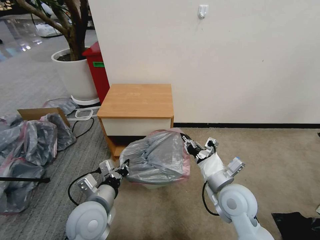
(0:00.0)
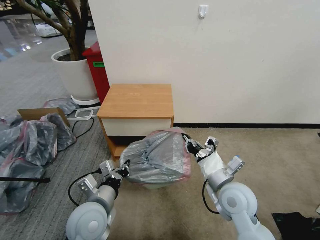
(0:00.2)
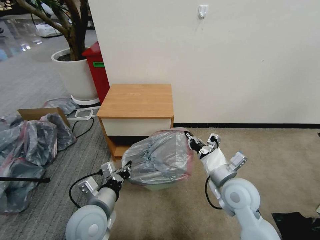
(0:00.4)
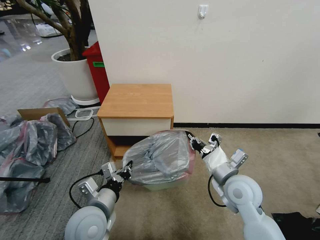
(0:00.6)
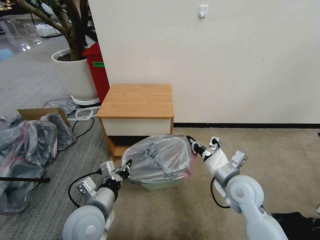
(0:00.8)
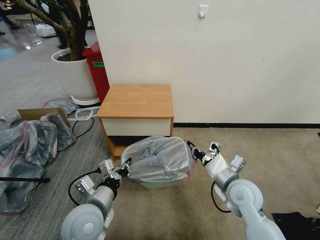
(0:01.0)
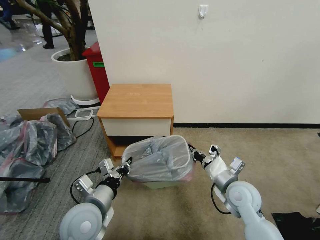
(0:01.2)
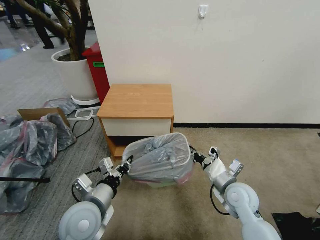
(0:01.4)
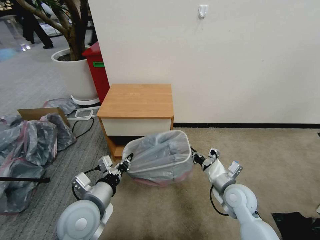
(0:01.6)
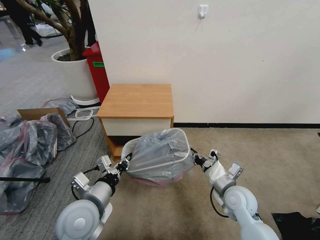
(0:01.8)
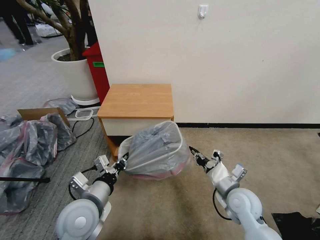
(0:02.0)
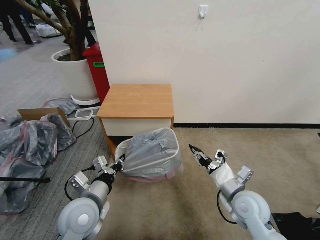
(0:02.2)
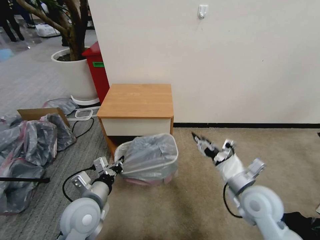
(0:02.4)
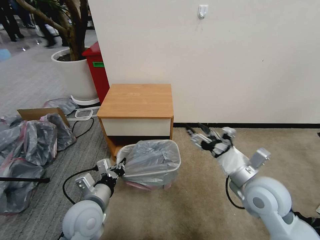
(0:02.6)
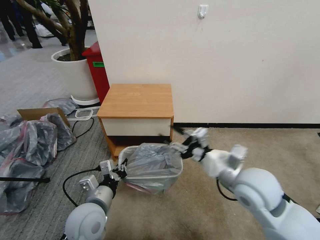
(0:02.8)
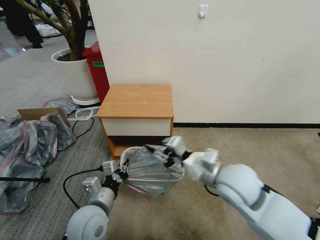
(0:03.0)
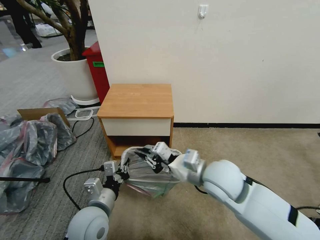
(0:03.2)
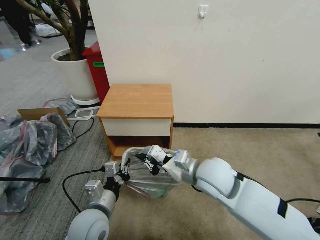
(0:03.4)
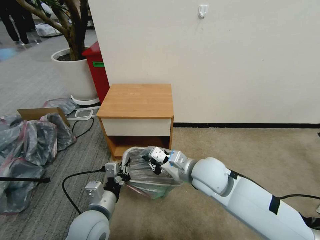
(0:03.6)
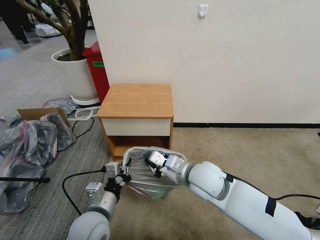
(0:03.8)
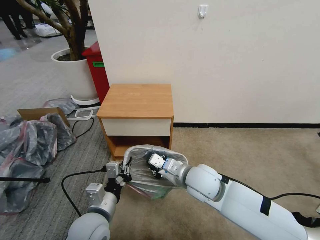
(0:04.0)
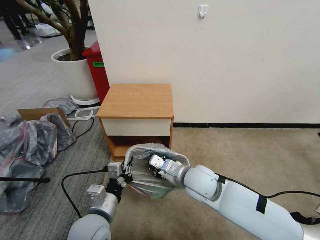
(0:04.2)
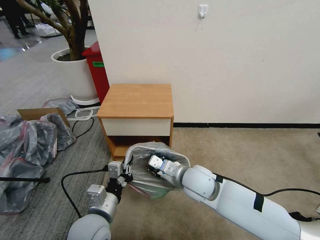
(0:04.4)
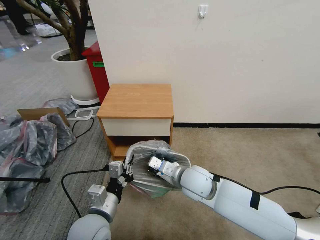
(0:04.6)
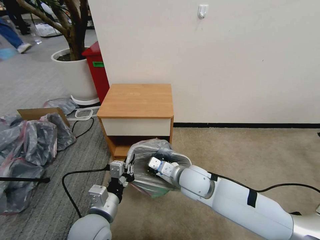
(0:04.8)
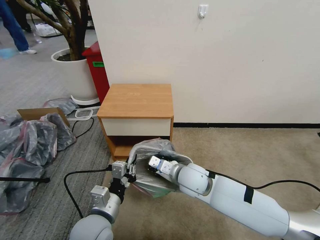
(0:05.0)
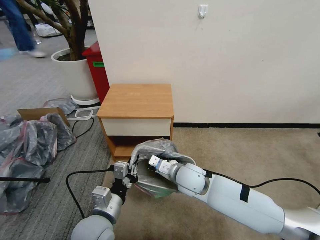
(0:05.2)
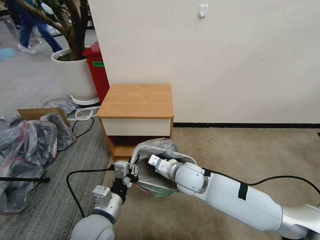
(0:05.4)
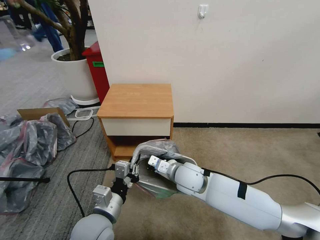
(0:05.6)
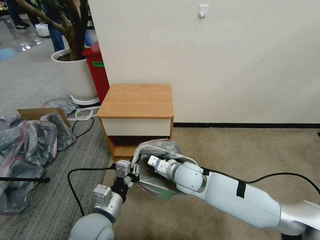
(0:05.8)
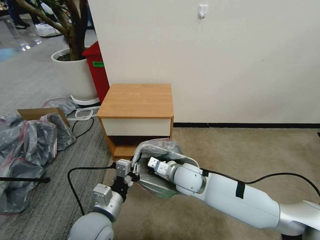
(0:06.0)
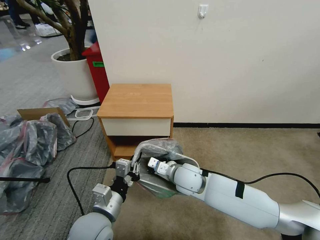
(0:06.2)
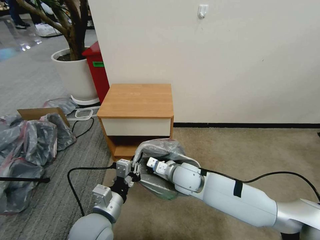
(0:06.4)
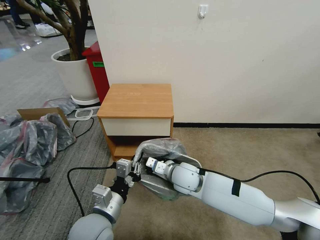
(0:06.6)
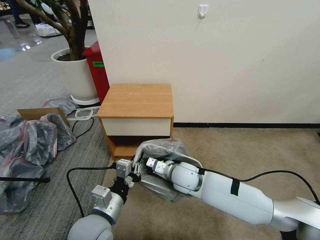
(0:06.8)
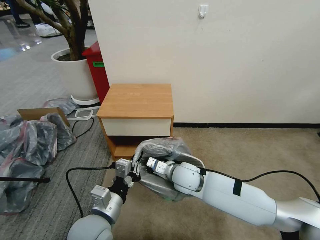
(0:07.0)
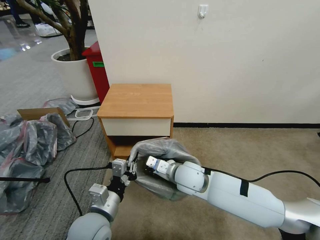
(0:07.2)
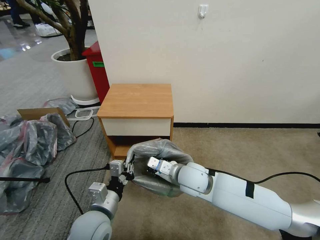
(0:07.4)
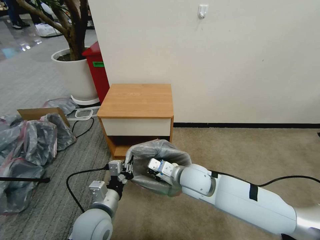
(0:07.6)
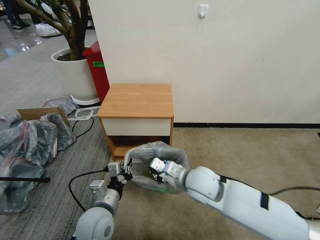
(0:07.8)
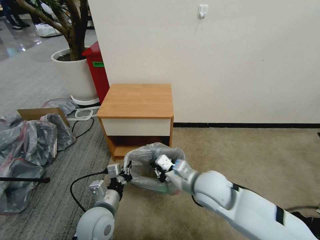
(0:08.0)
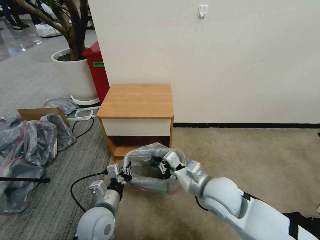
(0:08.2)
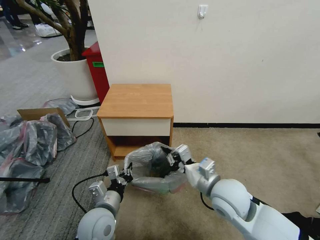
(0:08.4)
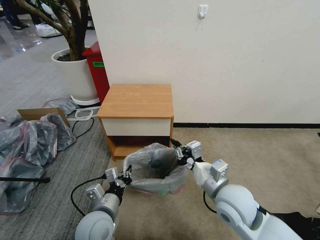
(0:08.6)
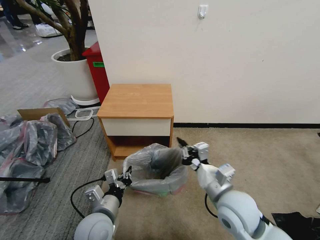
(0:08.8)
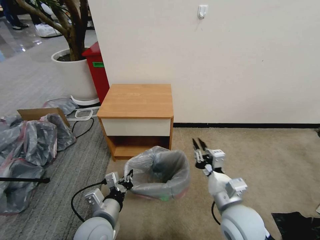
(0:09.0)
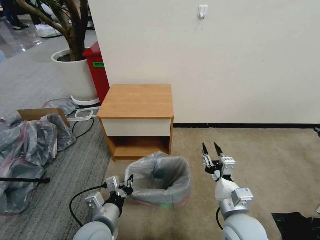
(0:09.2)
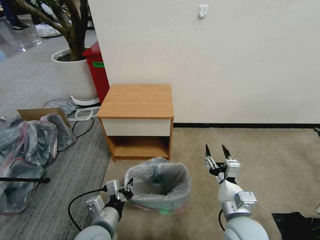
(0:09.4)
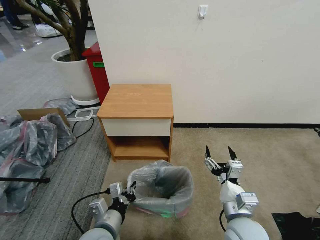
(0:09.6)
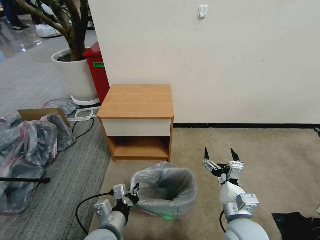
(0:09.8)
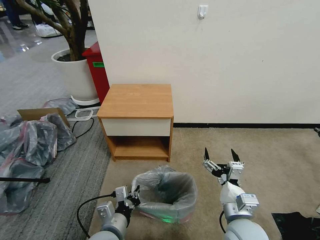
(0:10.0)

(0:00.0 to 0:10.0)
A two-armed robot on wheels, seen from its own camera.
Task of the whole recording: Pick up the garbage bag from the table and place it over the trash can.
0:00.0 - 0:01.4: The right gripper heads downward, covering approximately 5 cm.
0:01.4 - 0:02.8: The right gripper travels upward by some 15 cm, and opens.
0:02.8 - 0:04.2: The right gripper moves to the left and downward, some 15 cm, and closes.
0:04.2 - 0:05.8: The right gripper shifts by approximately 5 cm.
0:05.8 - 0:07.2: The grippers move only a little.
0:07.2 - 0:08.6: The right gripper goes roughly 15 cm to the right and backward.
0:08.6 - 0:10.0: The left gripper shifts by approximately 5 cm; the right gripper shifts approximately 10 cm backward and downward, and opens its fingers.

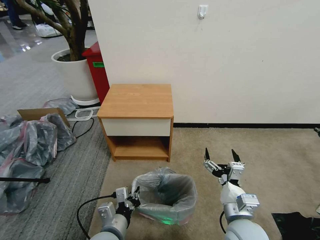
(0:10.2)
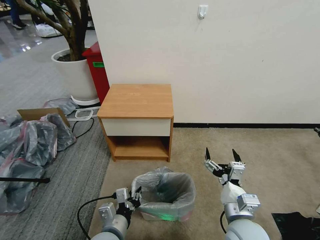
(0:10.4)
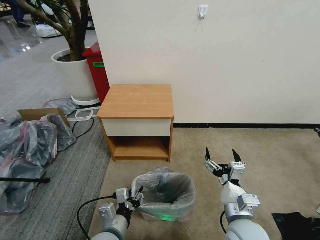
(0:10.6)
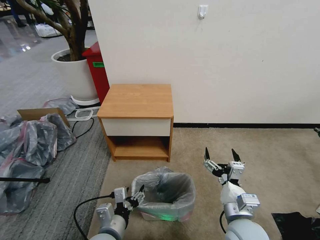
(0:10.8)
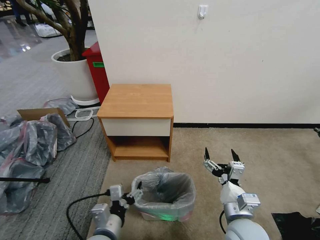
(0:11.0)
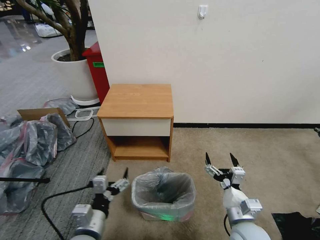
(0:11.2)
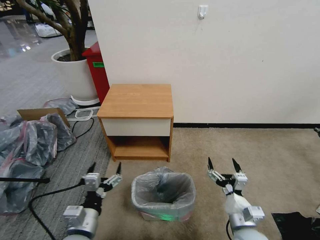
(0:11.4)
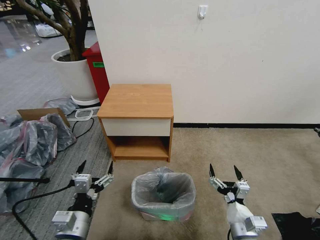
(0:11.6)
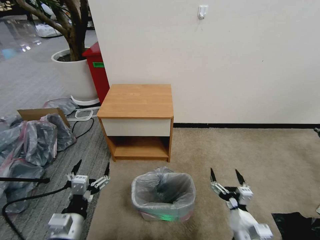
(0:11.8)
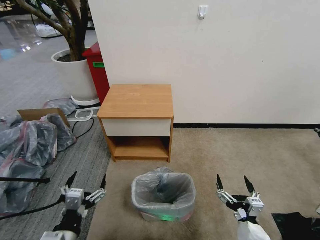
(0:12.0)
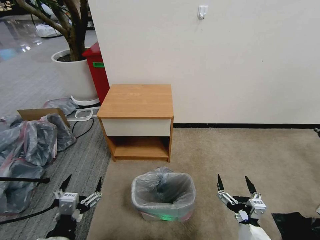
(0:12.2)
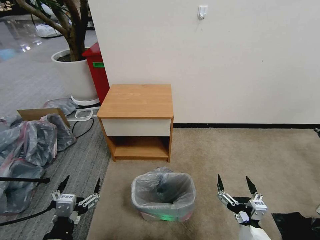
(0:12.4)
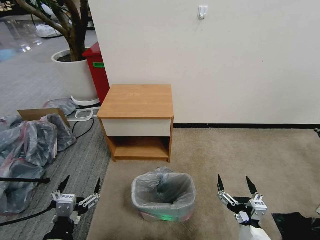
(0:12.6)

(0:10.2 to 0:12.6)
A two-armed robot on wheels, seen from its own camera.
Task of the whole recording: Pick up the garbage bag from the table and place it over the trash can.
0:10.2 - 0:11.4: The left gripper is displaced to the left by some 5 cm, and opens up, while the right gripper goes approximately 5 cm downward.
0:11.4 - 0:12.6: The two grippers go about 10 cm backward.

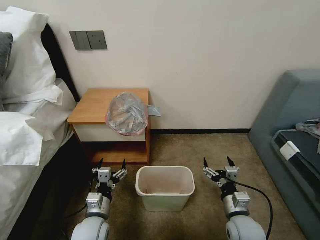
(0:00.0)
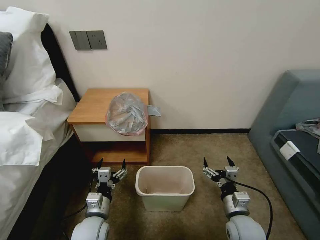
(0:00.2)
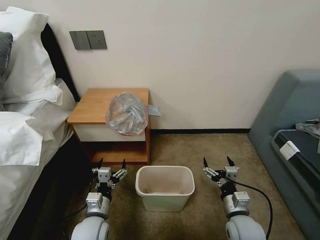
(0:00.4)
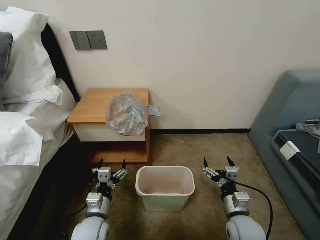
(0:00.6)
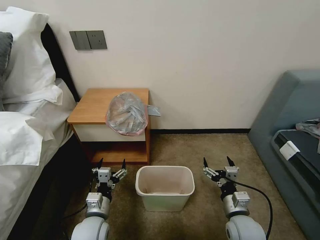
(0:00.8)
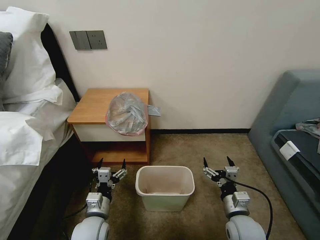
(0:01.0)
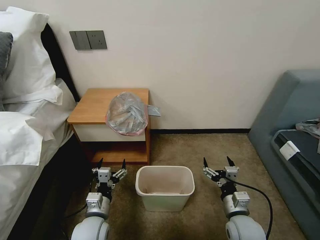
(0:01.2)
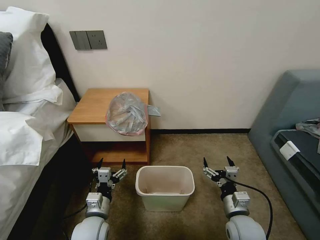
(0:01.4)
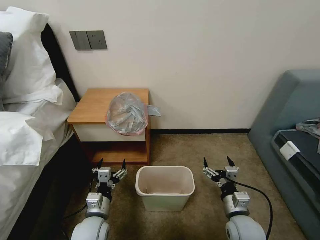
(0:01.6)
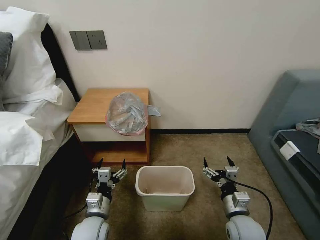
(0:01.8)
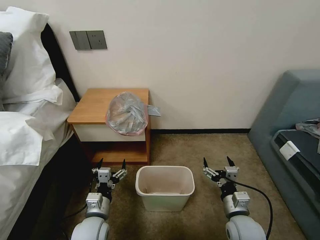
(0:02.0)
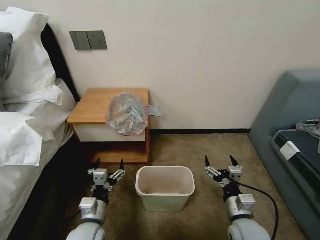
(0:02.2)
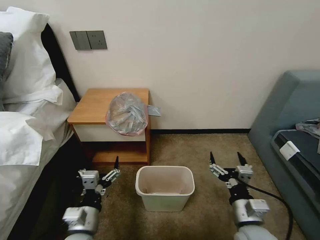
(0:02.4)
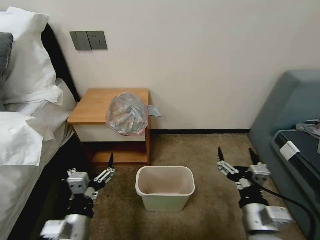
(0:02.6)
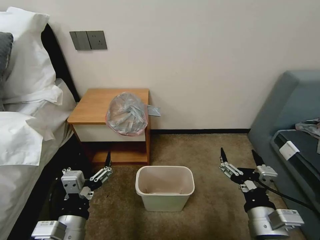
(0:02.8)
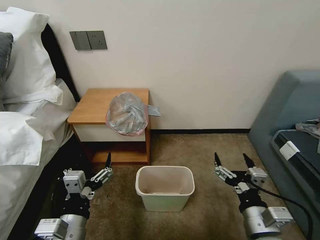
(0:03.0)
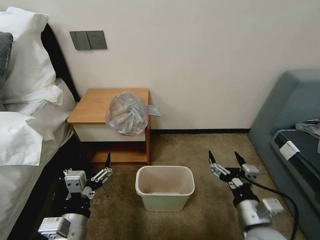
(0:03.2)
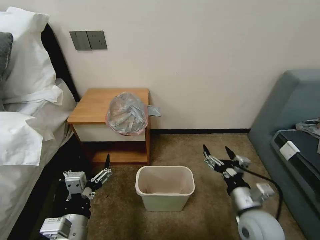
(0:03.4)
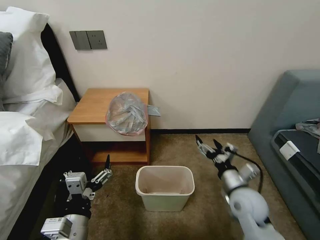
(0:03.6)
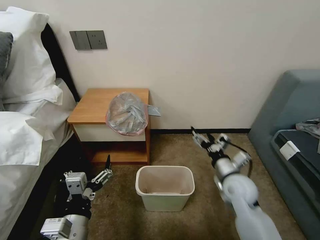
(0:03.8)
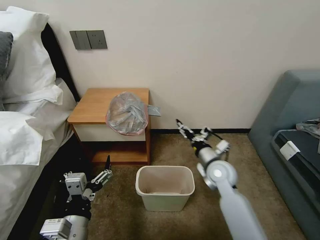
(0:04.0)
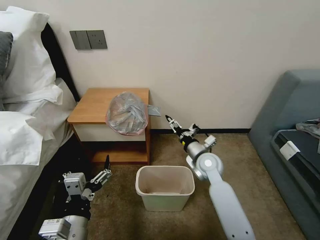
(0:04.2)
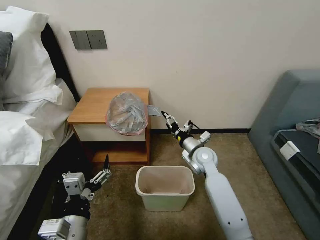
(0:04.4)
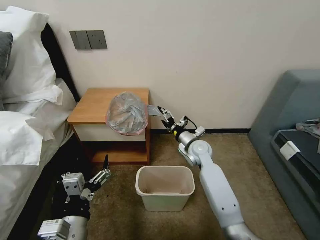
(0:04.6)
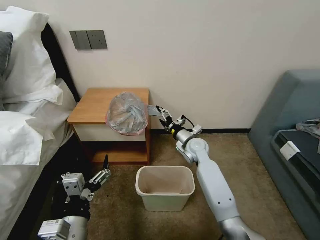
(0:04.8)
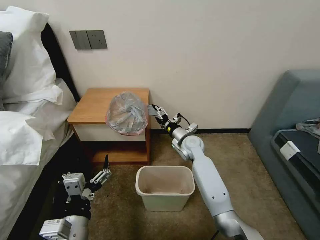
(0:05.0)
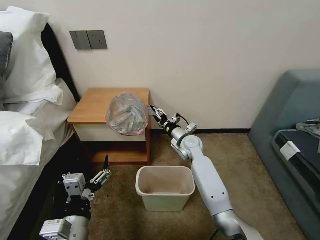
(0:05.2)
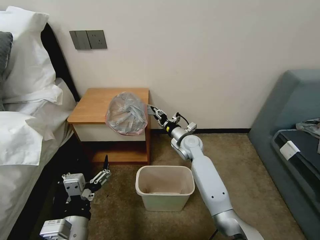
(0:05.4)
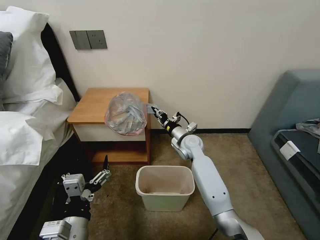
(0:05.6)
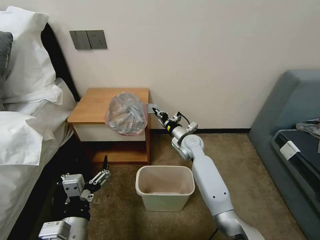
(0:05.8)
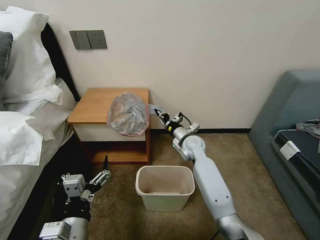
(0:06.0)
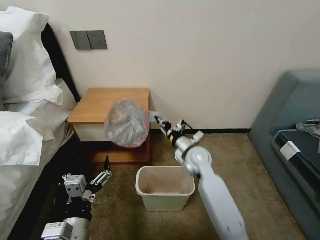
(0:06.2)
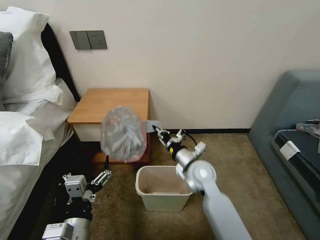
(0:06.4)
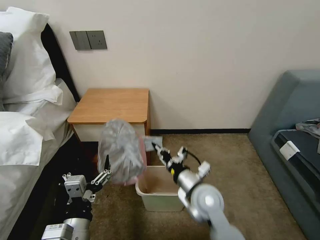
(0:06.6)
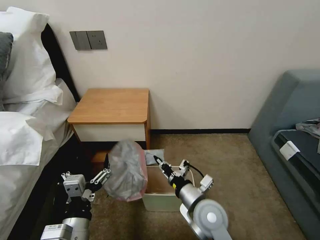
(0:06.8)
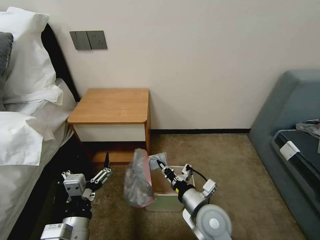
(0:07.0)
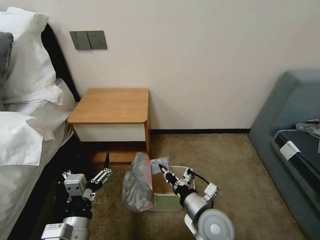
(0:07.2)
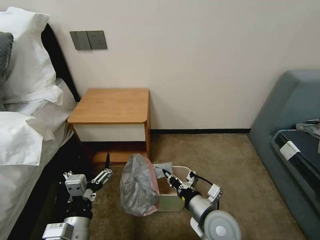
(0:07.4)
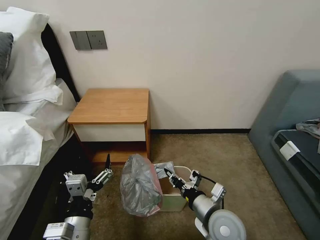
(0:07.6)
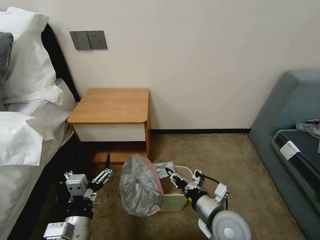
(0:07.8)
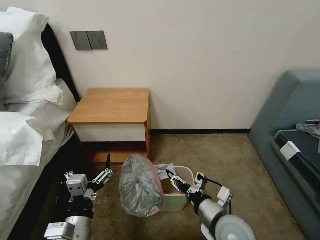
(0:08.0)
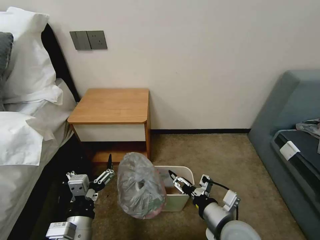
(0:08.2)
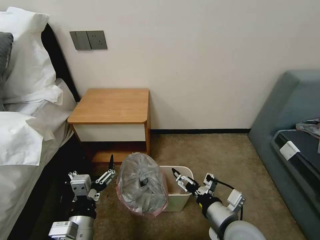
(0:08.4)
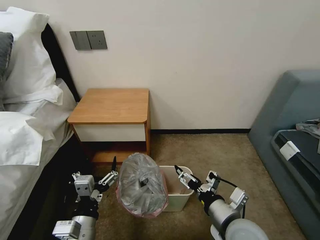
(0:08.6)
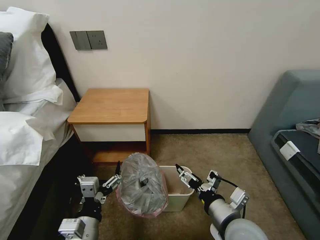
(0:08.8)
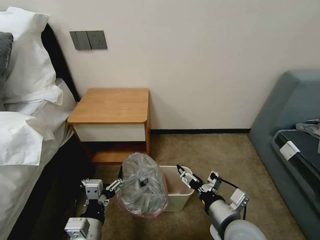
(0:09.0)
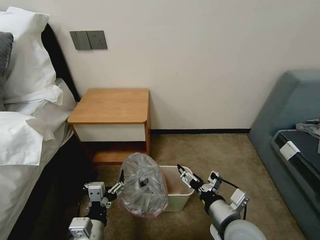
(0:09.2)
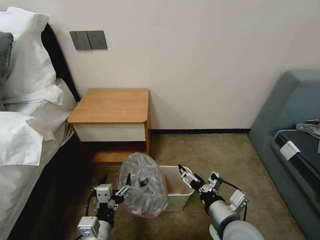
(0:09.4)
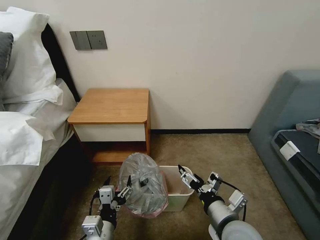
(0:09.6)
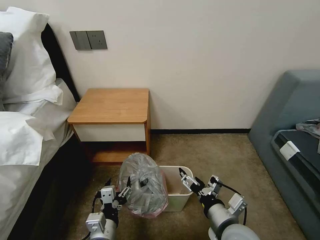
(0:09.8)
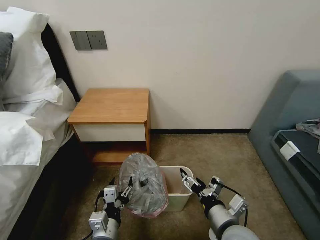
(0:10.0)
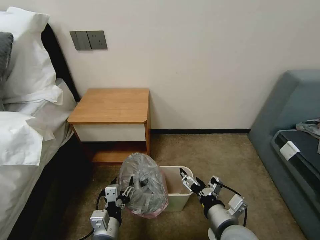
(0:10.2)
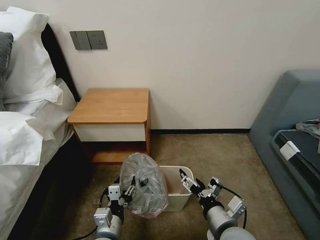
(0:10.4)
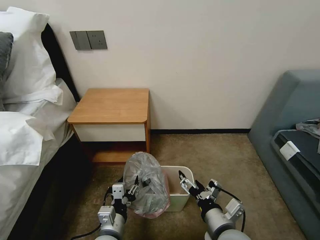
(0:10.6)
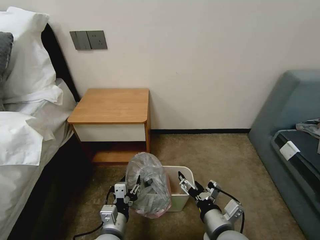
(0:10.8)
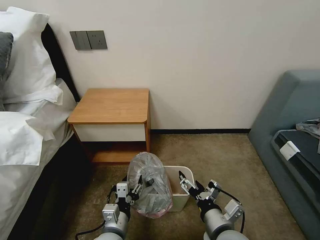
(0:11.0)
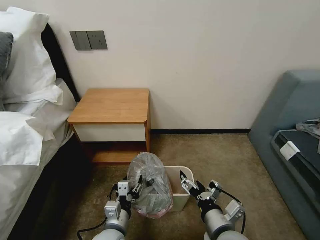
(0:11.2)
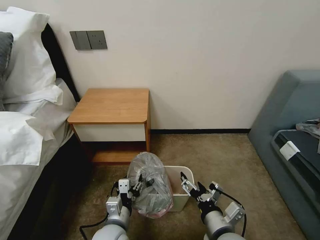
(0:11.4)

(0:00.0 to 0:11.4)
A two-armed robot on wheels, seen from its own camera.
Task of the whole recording: Pick up the garbage bag from the table and place it over the trash can.
0:01.4 - 0:02.8: Both grippers move upward and backward, about 15 cm.
0:02.8 - 0:04.2: The right gripper goes about 25 cm forward.
0:04.2 - 0:05.6: The right gripper travels forward by some 10 cm, and closes its fingers.
0:05.6 - 0:07.2: The right gripper is displaced backward by roughly 30 cm.
0:07.2 - 0:08.6: The right gripper is displaced to the right by some 5 cm, and opens up.
0:08.6 - 0:10.0: The left gripper moves downward, approximately 5 cm.
0:10.0 - 0:11.4: The left gripper shifts by some 5 cm.
